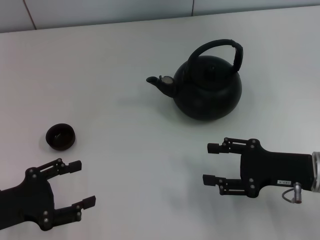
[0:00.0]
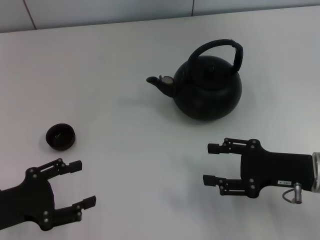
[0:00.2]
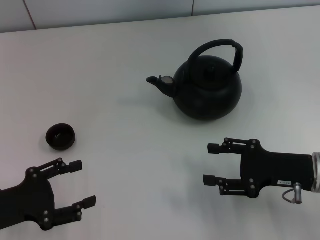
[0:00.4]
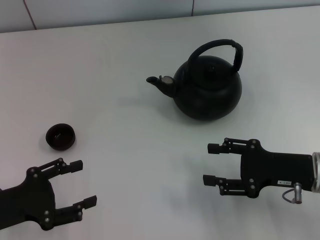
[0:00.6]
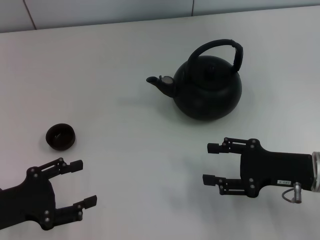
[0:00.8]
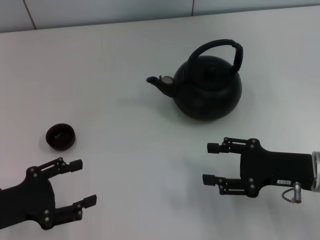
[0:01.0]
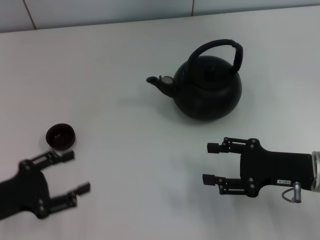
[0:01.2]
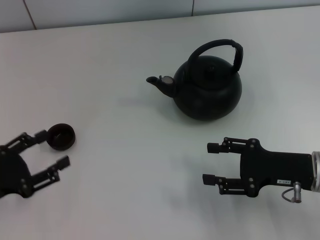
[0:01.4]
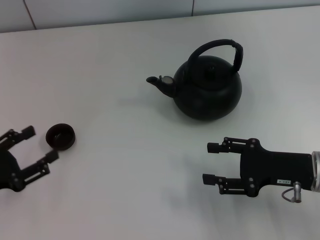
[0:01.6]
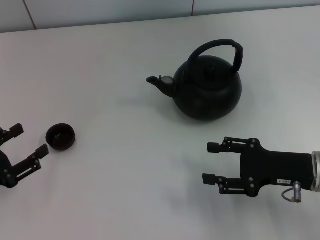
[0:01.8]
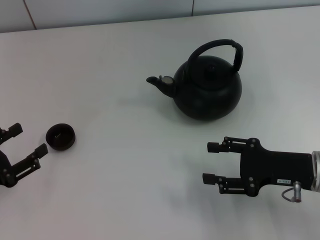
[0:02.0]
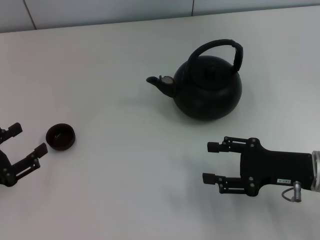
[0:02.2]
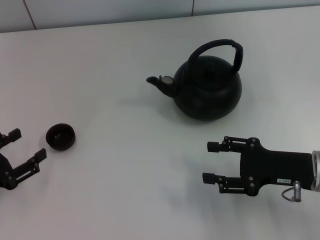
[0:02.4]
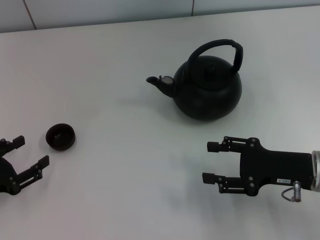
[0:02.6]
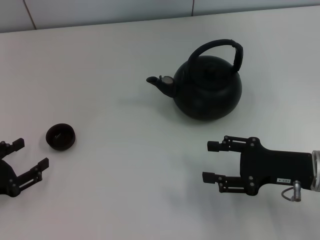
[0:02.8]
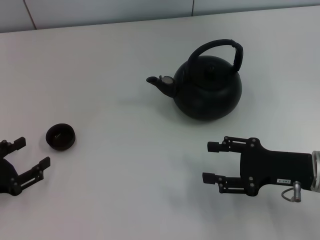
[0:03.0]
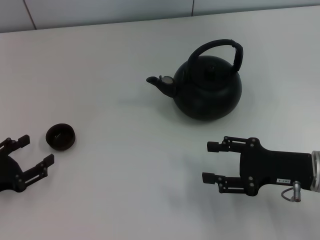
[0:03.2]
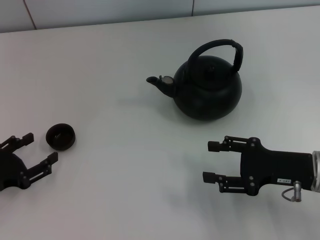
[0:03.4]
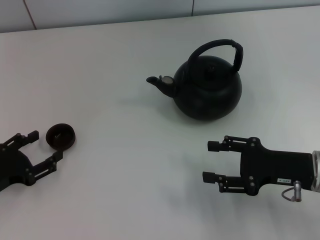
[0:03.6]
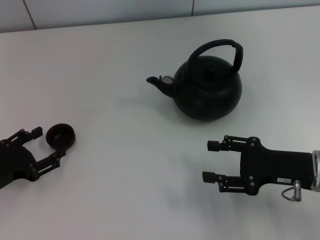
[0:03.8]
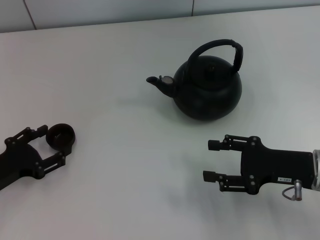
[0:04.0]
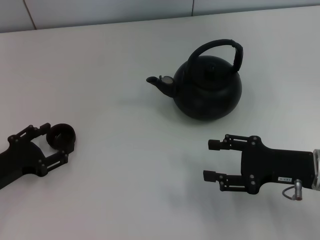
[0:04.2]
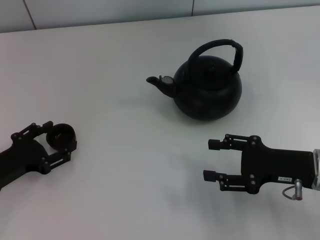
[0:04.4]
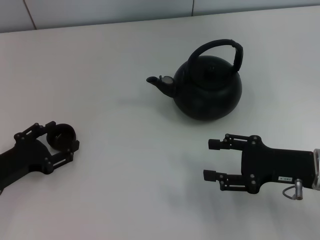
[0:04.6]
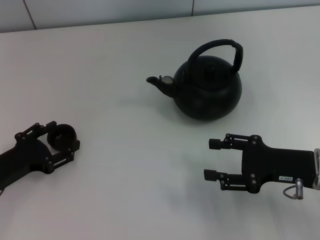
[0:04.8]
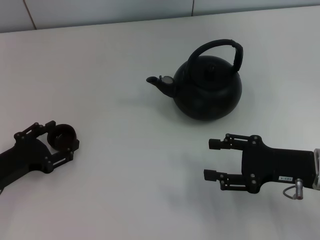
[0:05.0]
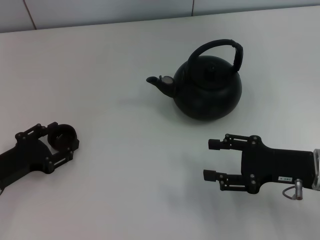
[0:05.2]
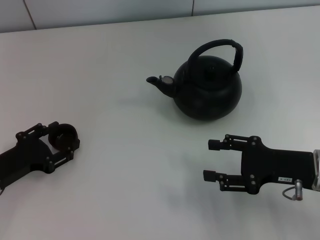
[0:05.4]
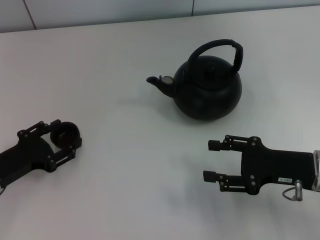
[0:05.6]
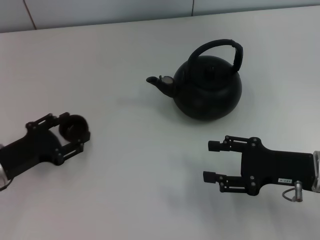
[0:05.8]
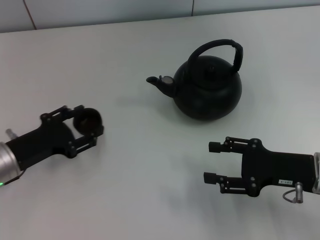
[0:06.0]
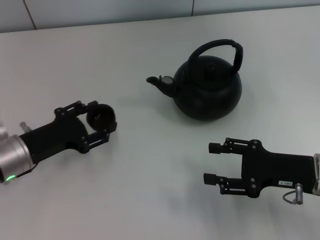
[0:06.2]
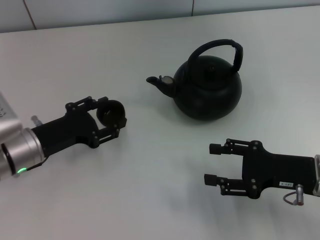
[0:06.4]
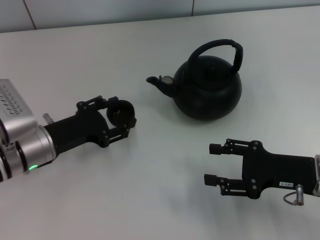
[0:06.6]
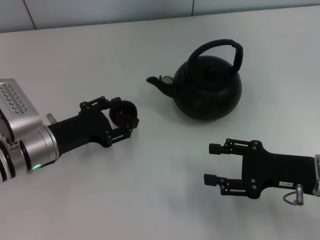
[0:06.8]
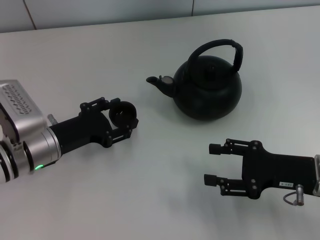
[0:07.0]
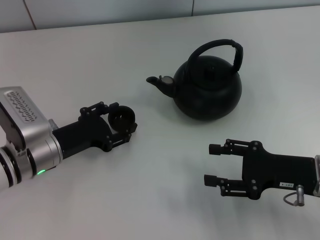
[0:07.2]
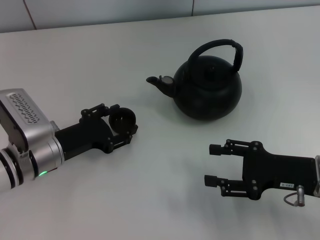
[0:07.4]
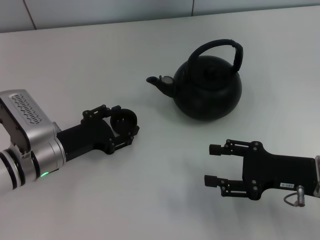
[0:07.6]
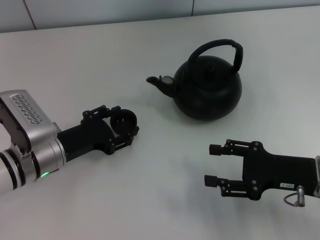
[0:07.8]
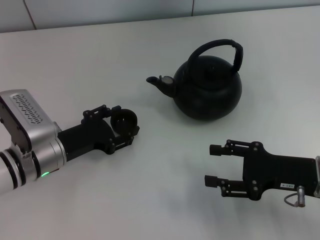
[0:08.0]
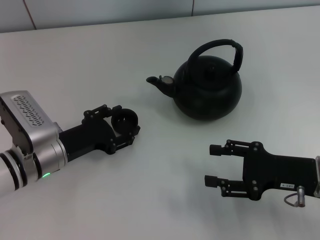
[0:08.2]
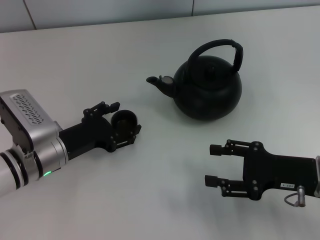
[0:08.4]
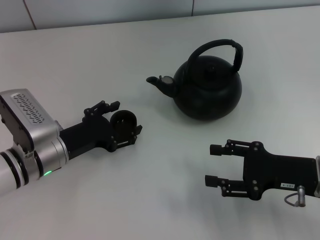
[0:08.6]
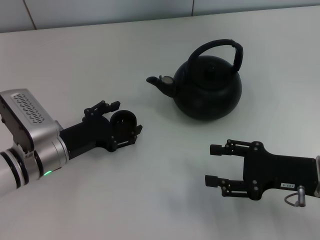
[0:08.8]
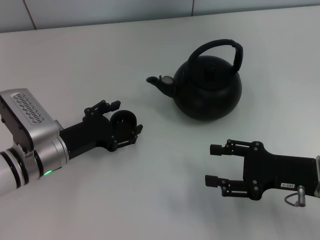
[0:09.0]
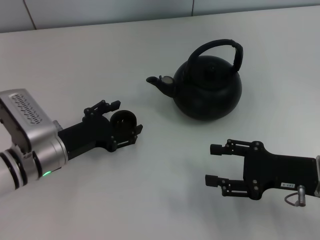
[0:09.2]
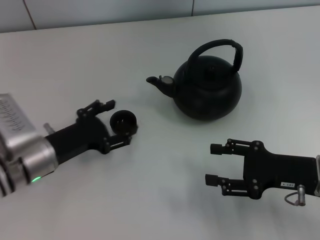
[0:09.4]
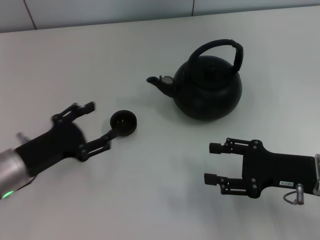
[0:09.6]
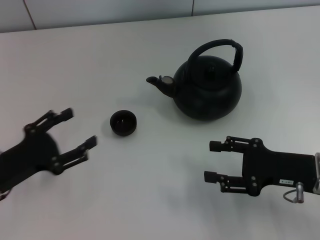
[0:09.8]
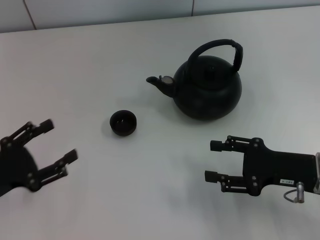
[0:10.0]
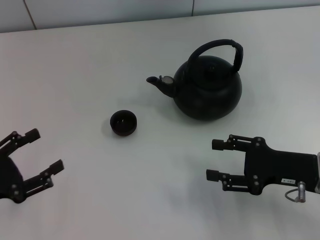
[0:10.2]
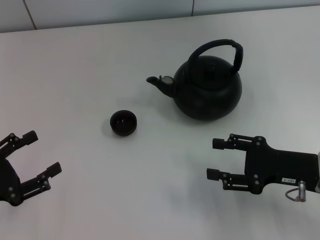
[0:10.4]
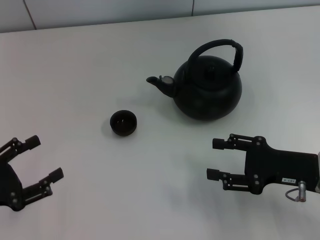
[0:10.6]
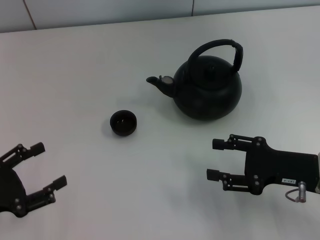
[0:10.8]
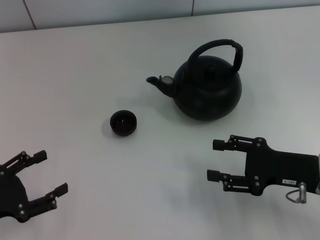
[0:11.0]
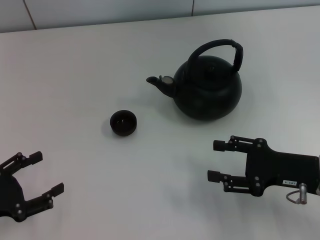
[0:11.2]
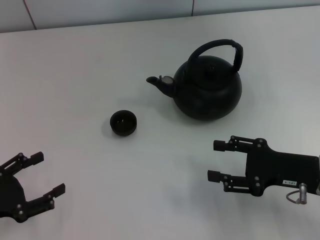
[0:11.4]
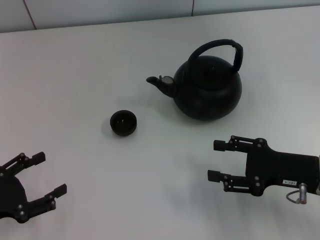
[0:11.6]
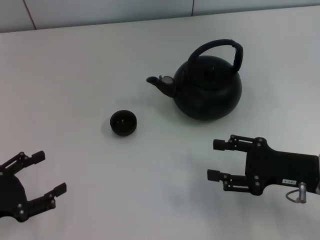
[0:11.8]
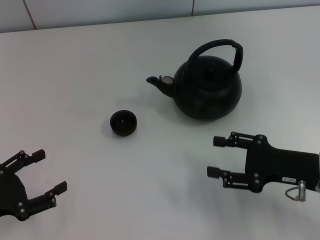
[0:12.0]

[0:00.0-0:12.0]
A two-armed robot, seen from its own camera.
Task of the whole recording: Grasp the handle of the teapot with one hand and pour tea into the teacup.
Step, 0:00.0 to 0:05.8: Pick up the teacup with the left gripper.
Step, 0:06.0 to 0:09.4: Place the teacup in the center of view with the left gripper.
0:01.6 to 0:03.0: There are only small adjustments of the grippers.
0:03.0 to 0:04.4: The left gripper shifts by about 5 cm.
0:04.4 to 0:06.0: The grippers move only a little.
0:06.0 to 0:07.6: The left gripper goes roughly 5 cm to the right, and opens.
0:07.6 to 0:09.0: The left gripper opens its fingers.
0:09.0 to 0:10.4: The left gripper heads to the left and backward, covering about 15 cm.
0:10.4 to 0:12.0: The grippers make only small movements.

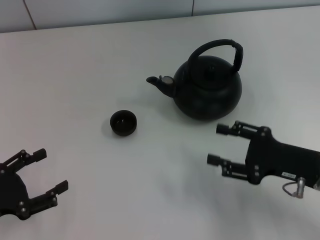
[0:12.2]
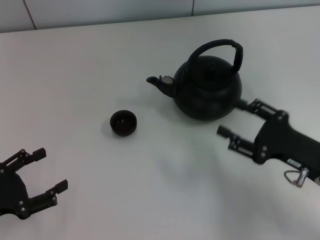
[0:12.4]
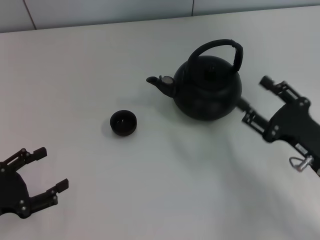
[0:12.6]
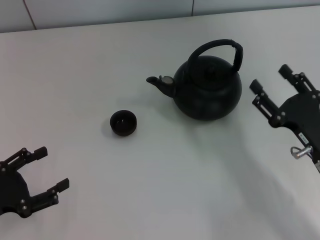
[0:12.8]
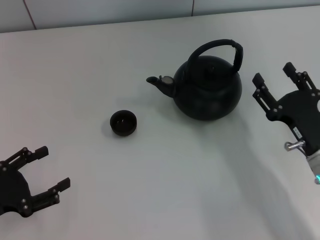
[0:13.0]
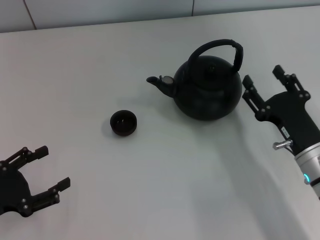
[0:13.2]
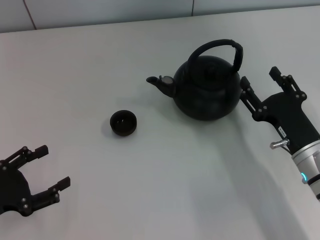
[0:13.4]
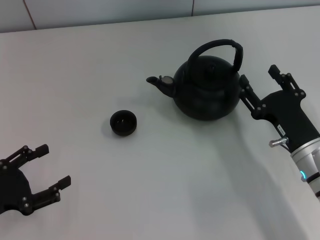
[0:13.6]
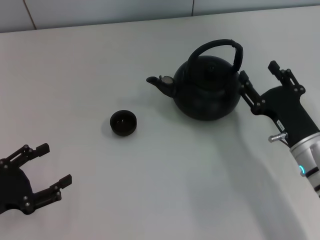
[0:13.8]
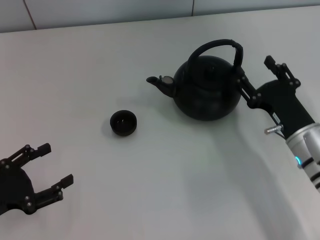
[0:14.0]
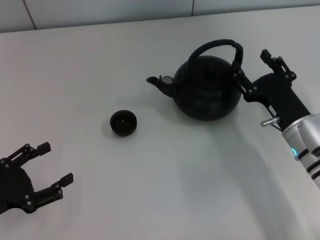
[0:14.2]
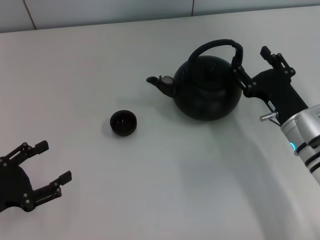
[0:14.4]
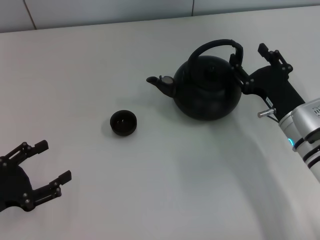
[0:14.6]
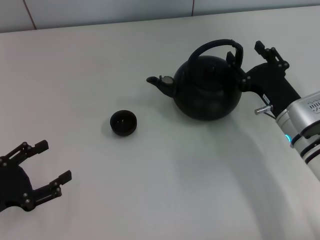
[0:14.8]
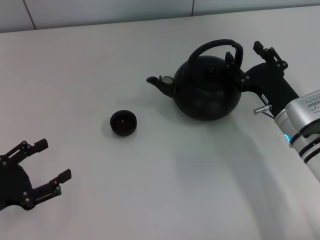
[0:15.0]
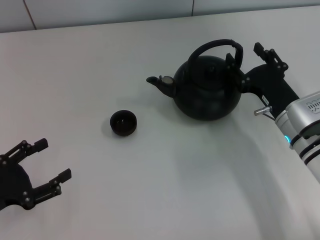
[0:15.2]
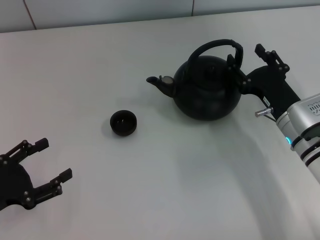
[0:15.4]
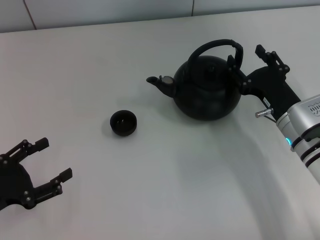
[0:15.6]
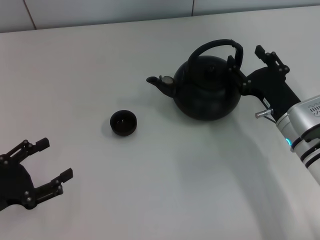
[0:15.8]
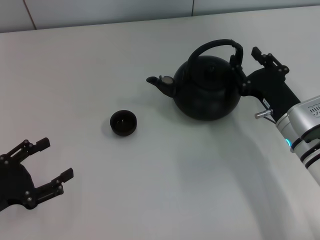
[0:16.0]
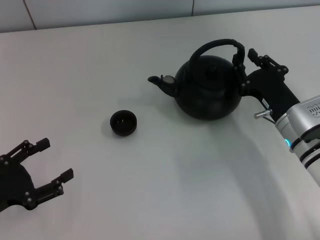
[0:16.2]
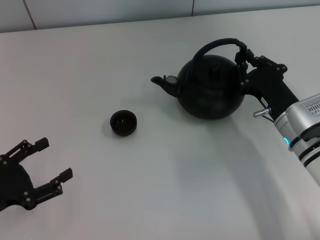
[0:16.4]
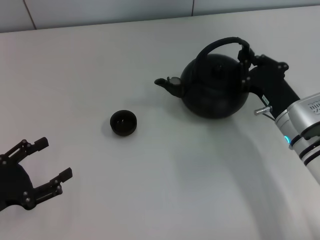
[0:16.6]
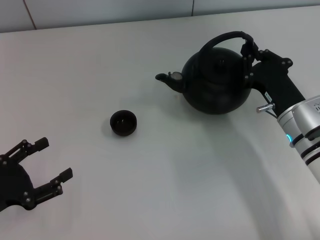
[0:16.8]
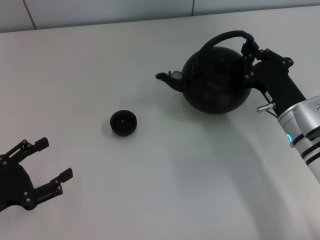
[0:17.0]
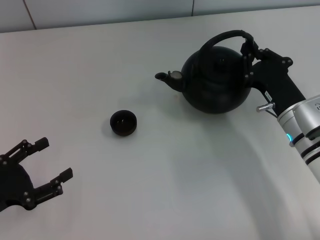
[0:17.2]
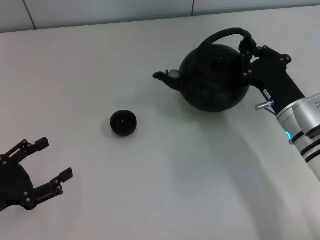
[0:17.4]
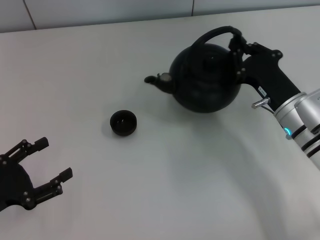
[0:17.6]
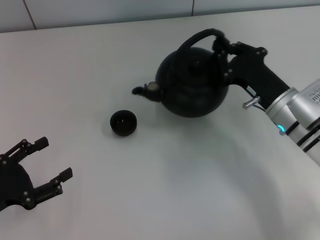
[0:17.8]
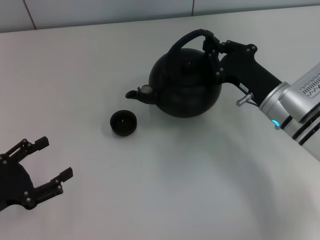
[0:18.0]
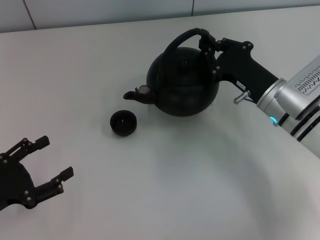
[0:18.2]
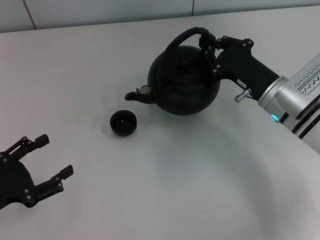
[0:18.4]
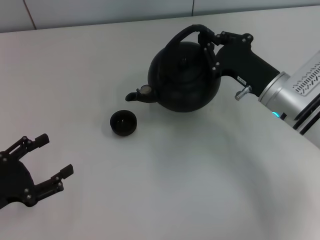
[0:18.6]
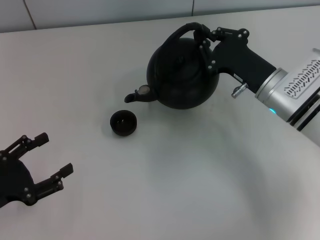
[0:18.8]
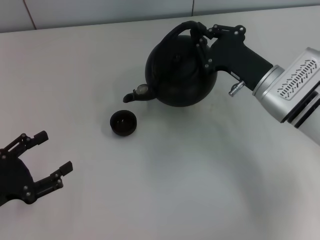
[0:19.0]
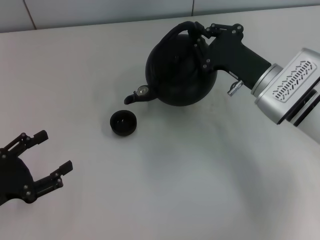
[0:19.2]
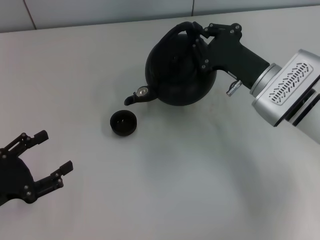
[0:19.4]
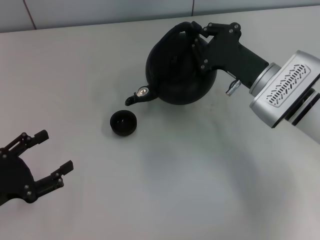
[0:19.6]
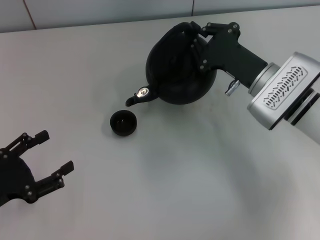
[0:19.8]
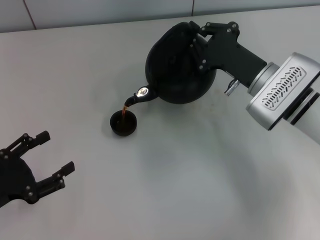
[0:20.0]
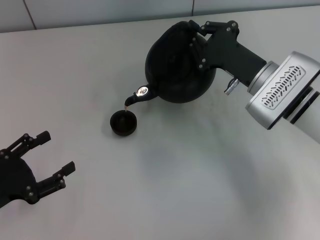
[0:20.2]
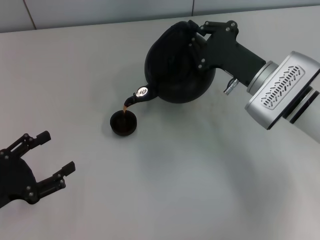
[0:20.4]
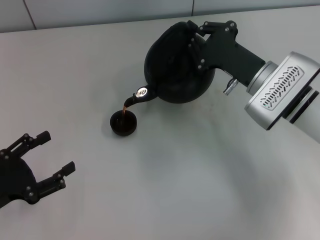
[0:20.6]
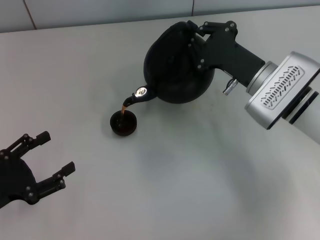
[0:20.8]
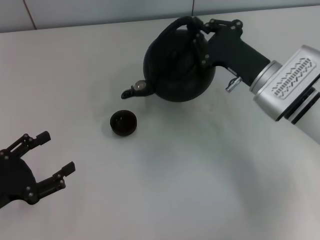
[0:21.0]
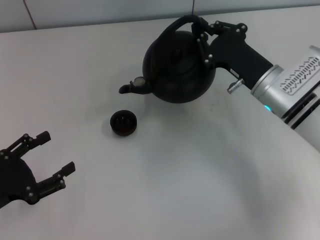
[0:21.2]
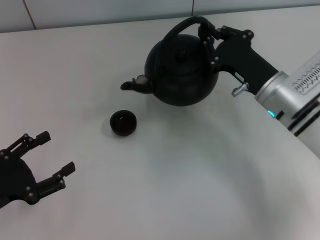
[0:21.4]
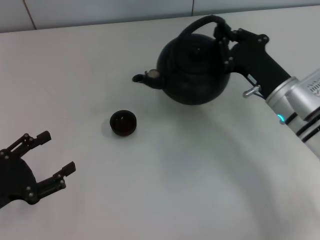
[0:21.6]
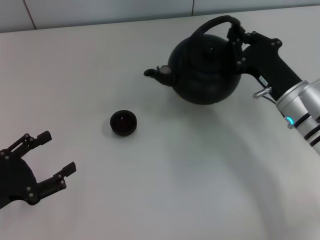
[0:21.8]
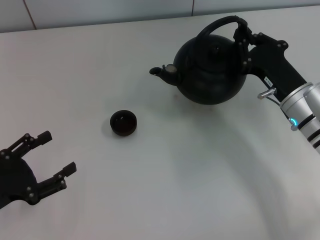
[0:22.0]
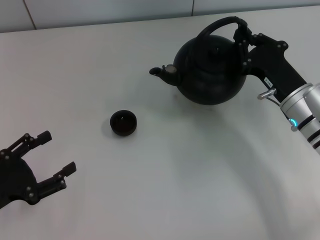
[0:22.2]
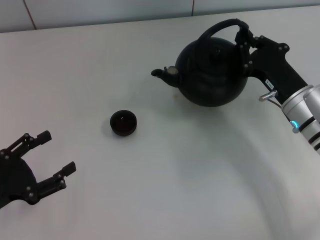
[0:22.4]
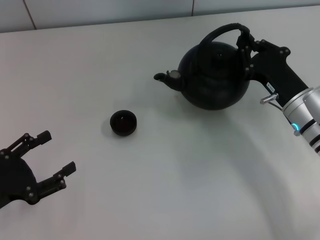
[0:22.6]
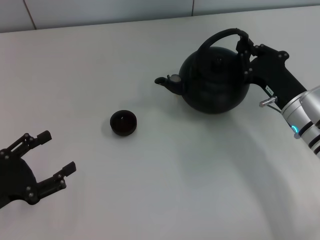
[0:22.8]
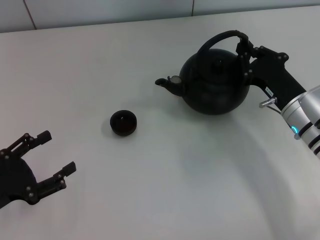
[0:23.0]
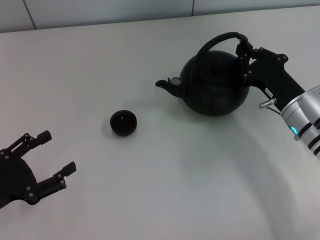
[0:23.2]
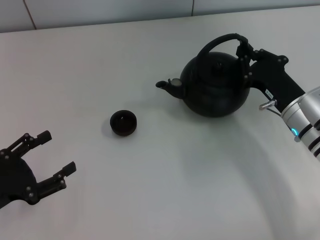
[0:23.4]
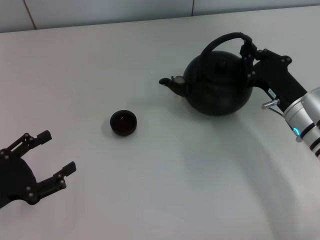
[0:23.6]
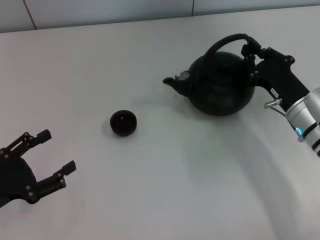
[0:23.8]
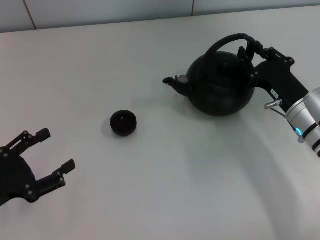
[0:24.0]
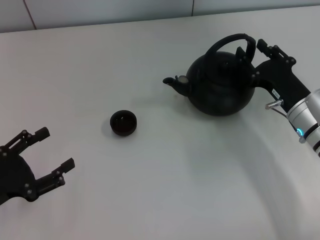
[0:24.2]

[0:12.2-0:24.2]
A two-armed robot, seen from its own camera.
Task of the whole recording: Grasp the handle of the teapot with one hand and pour tea into the teacup.
Step, 0:12.2 to 0:17.8: Pick up the teapot with the right gripper.
0:13.8 to 0:15.2: The right gripper heads forward, covering roughly 5 cm.
0:15.2 to 0:16.6: The right gripper closes its fingers.
0:16.6 to 0:18.2: There are only small adjustments of the grippers.
0:19.8 to 0:21.2: There are only small adjustments of the grippers.
0:21.2 to 0:22.6: The right gripper ends up some 5 cm from where it was.
0:22.6 to 0:24.2: The right gripper opens.
